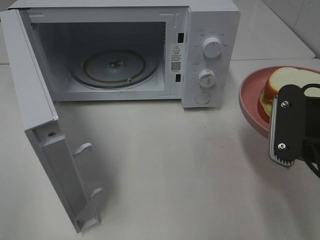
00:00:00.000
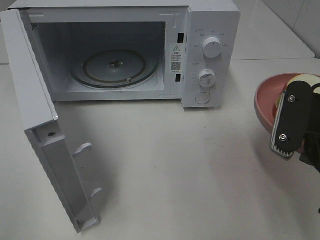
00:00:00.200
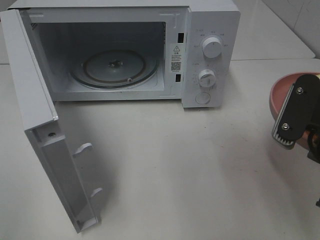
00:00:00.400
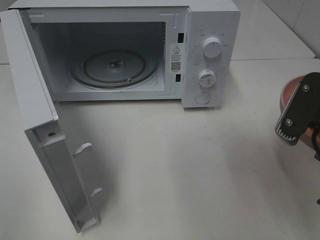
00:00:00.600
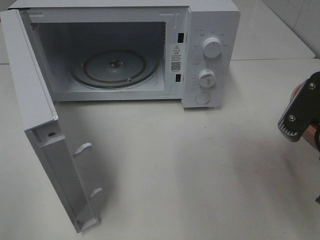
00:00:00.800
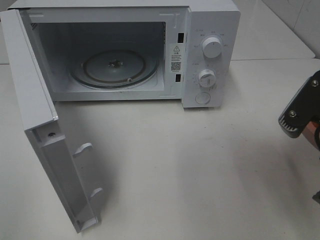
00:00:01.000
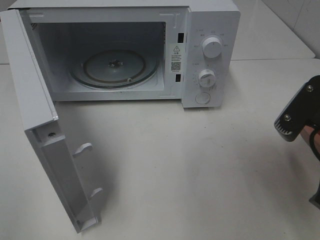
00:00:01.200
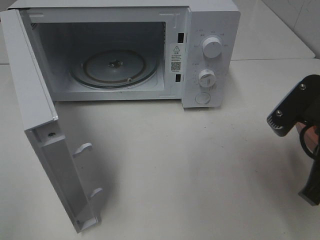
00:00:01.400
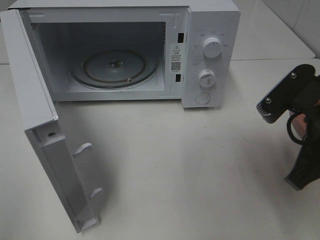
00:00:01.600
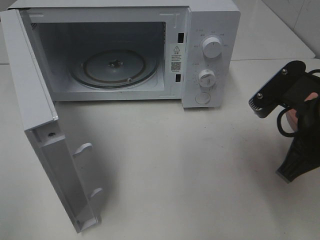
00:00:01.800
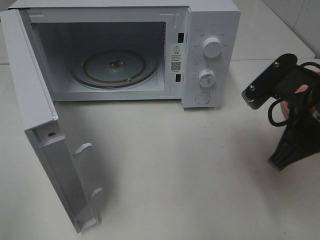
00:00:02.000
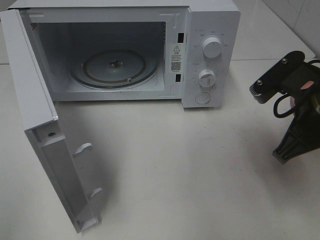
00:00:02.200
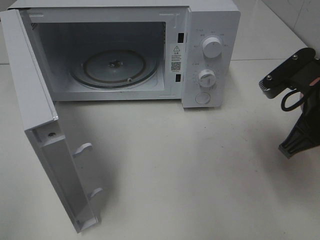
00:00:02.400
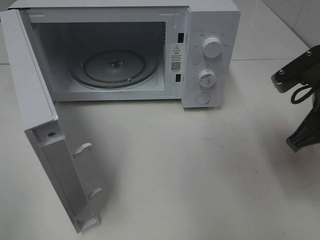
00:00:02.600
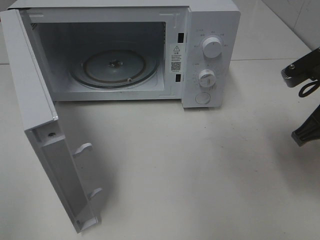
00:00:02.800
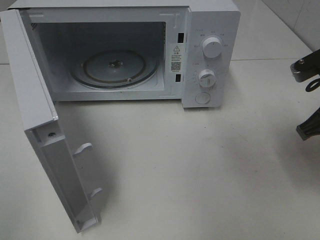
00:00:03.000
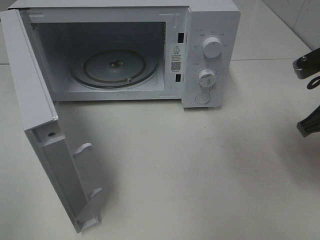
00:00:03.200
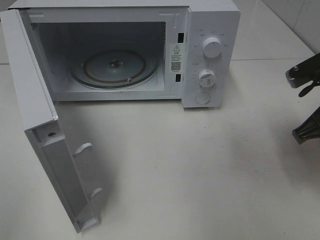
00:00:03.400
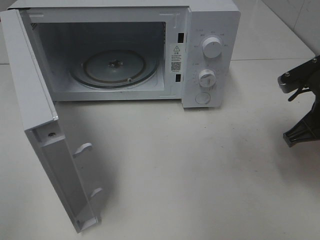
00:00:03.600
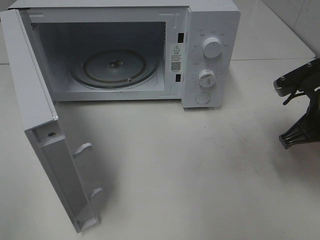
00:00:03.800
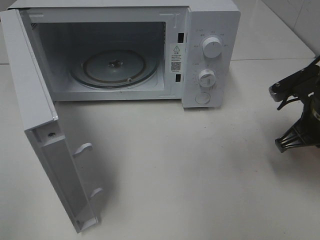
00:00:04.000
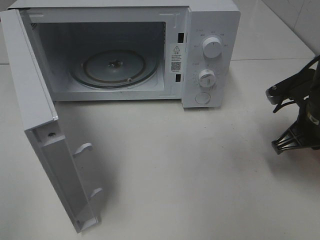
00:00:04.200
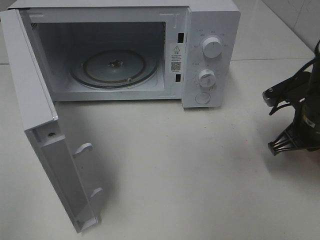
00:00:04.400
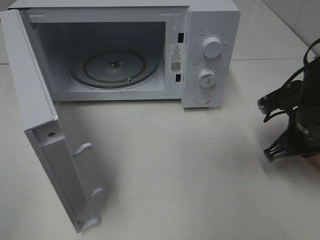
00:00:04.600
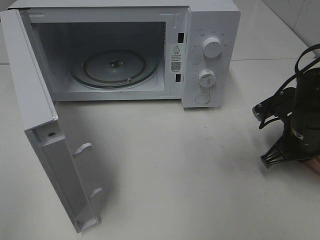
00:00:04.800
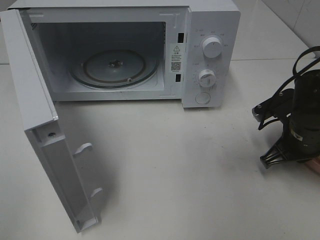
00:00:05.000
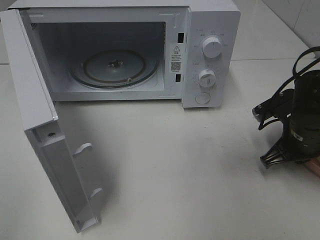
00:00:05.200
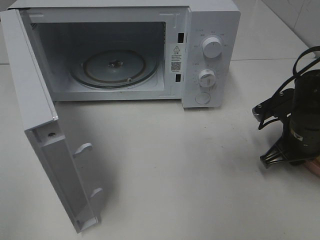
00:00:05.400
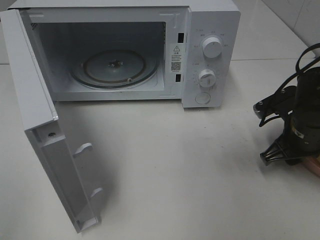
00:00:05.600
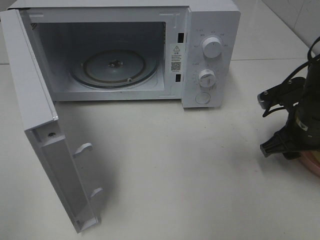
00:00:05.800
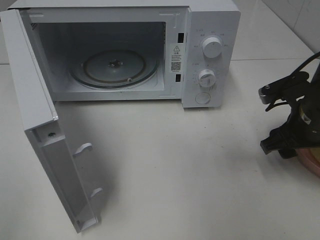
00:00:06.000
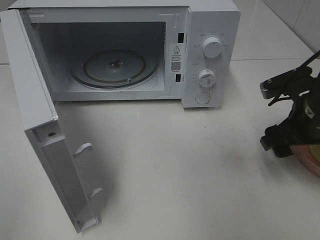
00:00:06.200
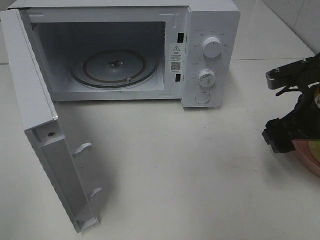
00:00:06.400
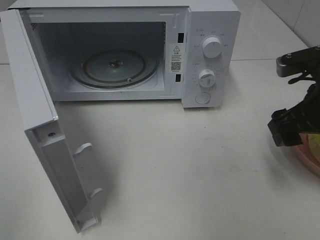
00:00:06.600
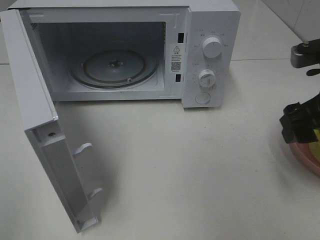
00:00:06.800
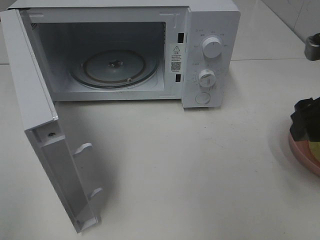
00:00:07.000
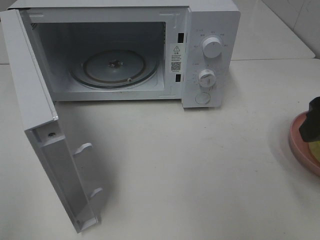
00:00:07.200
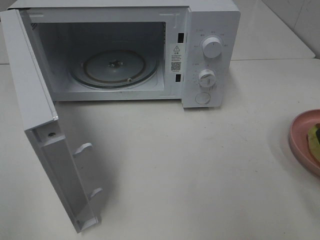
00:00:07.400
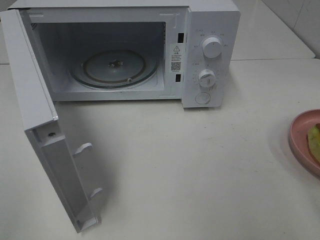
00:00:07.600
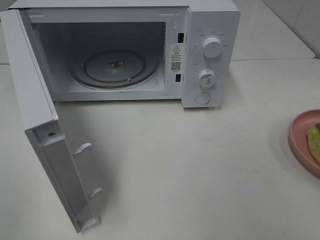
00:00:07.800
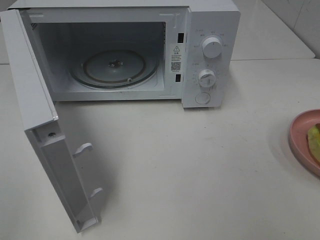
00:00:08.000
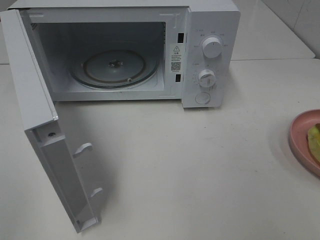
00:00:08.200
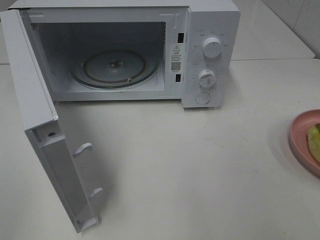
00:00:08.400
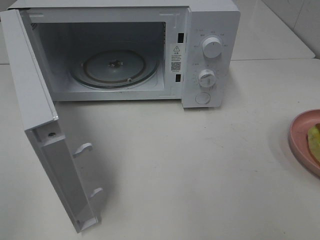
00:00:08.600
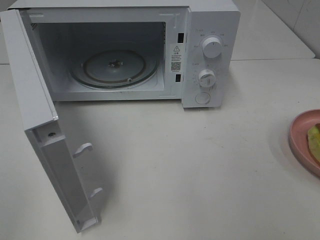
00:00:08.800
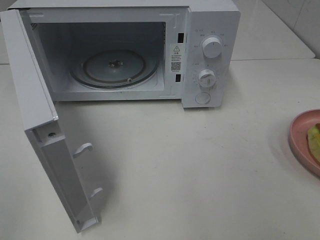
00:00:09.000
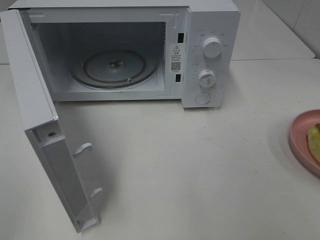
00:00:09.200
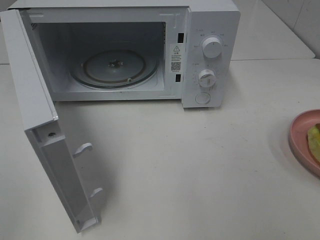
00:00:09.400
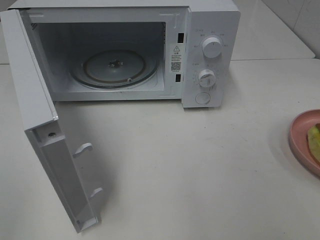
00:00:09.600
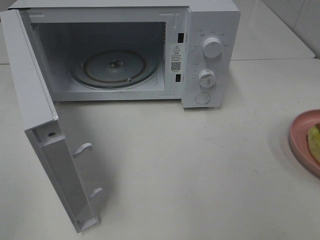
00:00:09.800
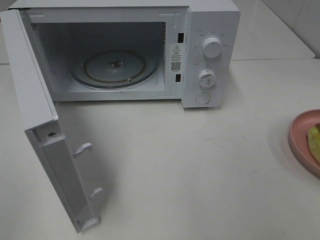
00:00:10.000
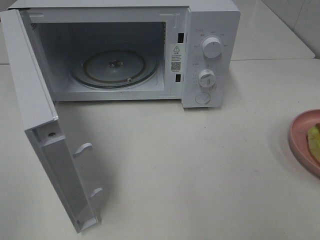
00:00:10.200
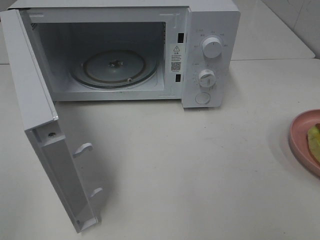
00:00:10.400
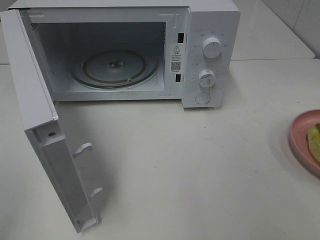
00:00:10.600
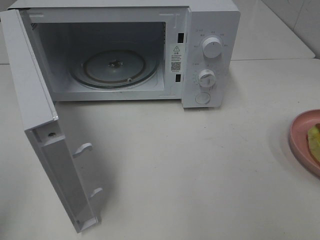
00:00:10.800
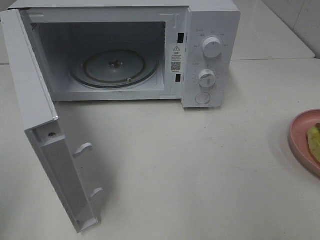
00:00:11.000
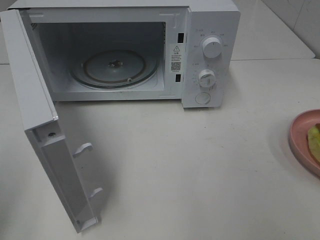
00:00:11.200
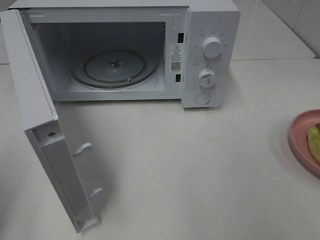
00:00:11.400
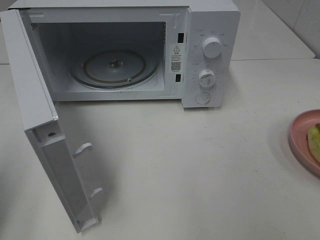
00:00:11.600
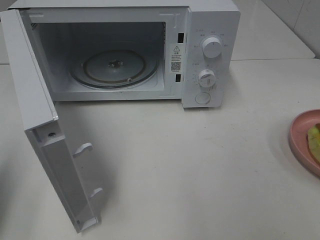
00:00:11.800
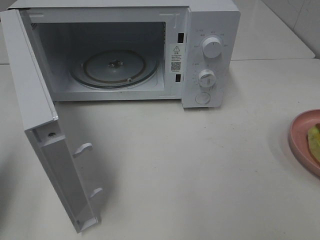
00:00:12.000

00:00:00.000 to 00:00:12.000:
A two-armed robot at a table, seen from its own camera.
Task of the whole recording: Heat Sandwich.
Step, 00:00:00.000 to 00:00:06.800: Right hand: place the plate on the table.
00:00:01.600 to 00:00:03.000: The right gripper heads forward and to the right, covering approximately 10 cm.
00:00:03.000 to 00:00:04.400: The right gripper heads downward, covering approximately 10 cm.
00:00:04.400 to 00:00:06.000: The right gripper opens its fingers.
00:00:06.000 to 00:00:07.600: The right gripper moves upward and backward, approximately 20 cm.
00:00:09.000 to 00:00:10.400: Both grippers stay about where they are.
00:00:10.400 to 00:00:12.000: The left gripper shifts roughly 15 cm forward, and closes its fingers.

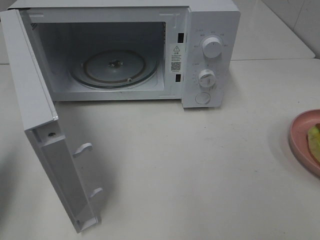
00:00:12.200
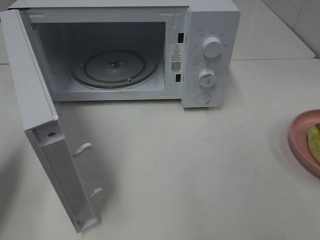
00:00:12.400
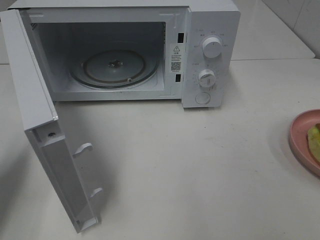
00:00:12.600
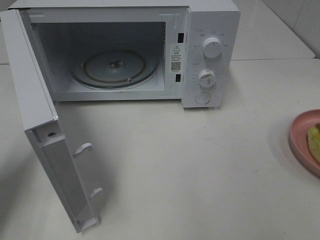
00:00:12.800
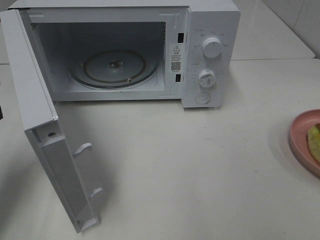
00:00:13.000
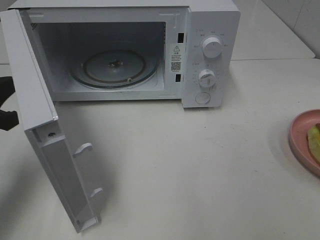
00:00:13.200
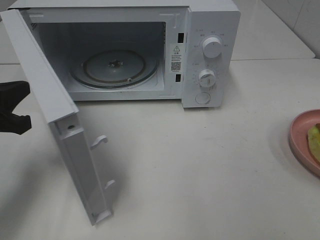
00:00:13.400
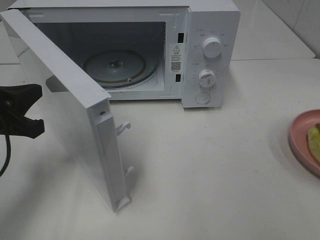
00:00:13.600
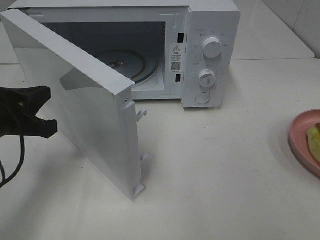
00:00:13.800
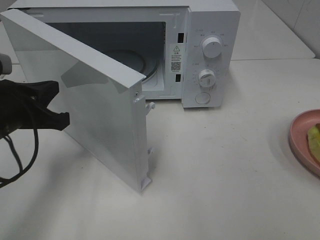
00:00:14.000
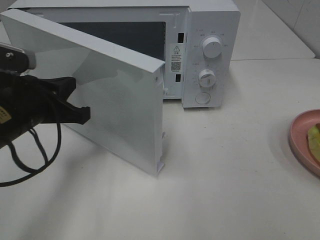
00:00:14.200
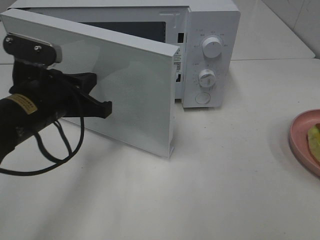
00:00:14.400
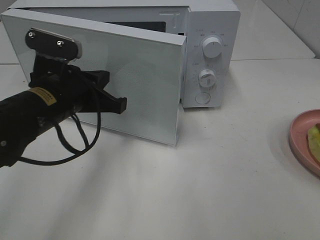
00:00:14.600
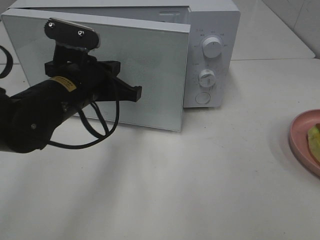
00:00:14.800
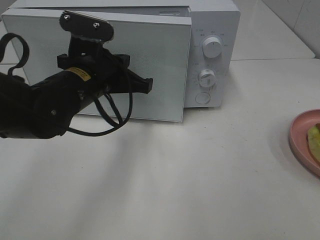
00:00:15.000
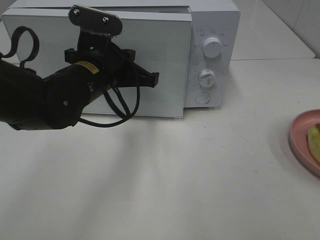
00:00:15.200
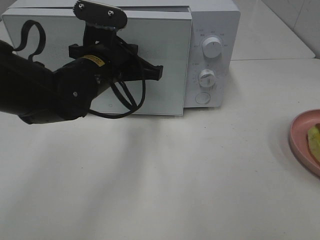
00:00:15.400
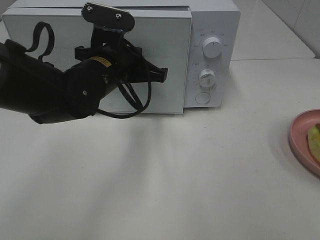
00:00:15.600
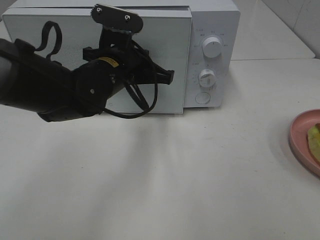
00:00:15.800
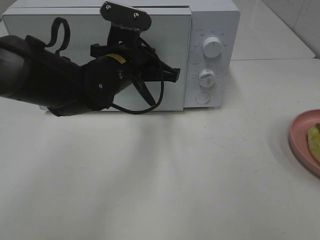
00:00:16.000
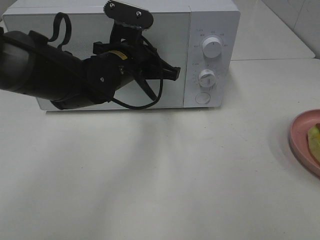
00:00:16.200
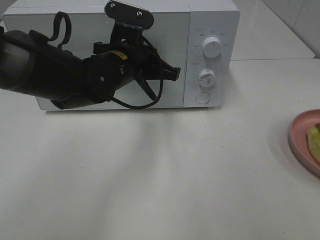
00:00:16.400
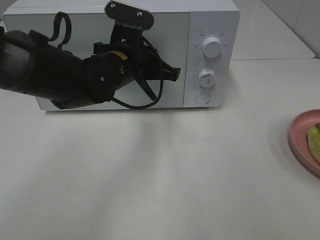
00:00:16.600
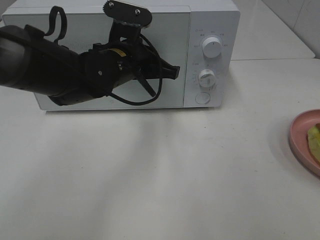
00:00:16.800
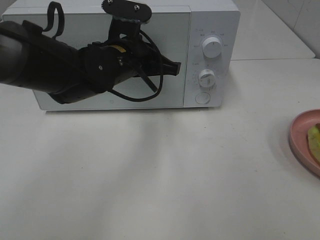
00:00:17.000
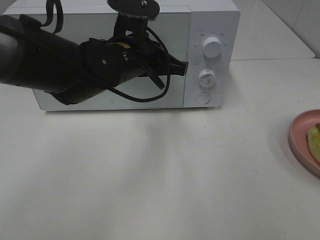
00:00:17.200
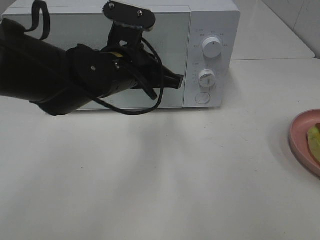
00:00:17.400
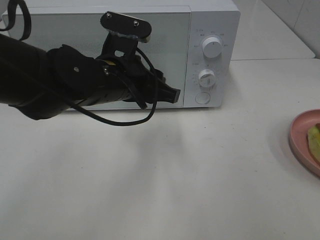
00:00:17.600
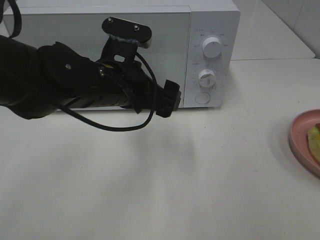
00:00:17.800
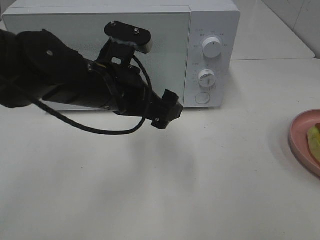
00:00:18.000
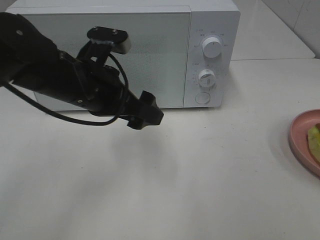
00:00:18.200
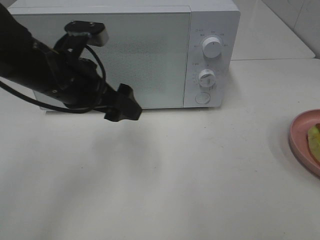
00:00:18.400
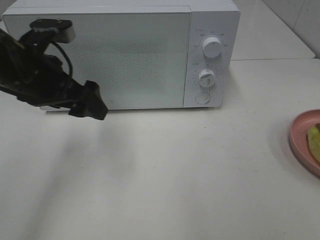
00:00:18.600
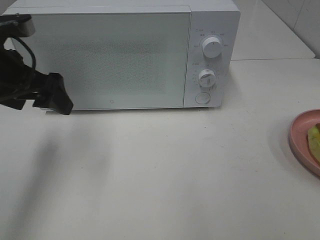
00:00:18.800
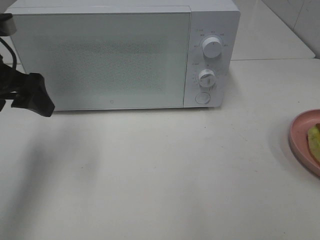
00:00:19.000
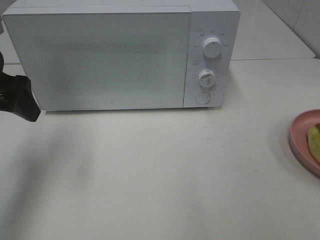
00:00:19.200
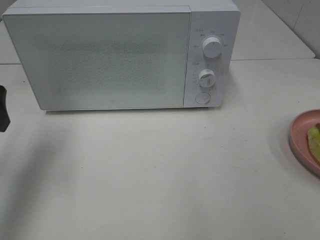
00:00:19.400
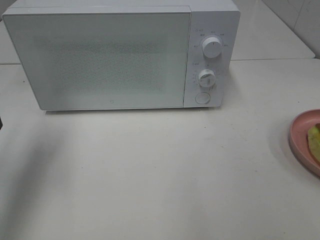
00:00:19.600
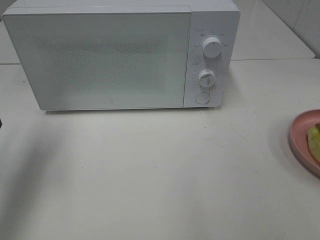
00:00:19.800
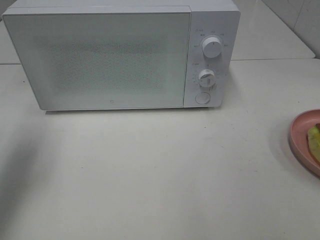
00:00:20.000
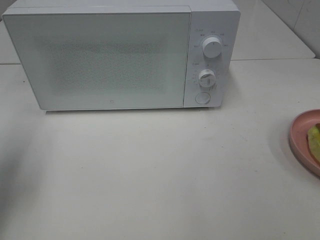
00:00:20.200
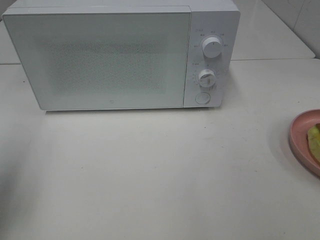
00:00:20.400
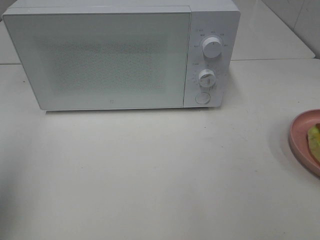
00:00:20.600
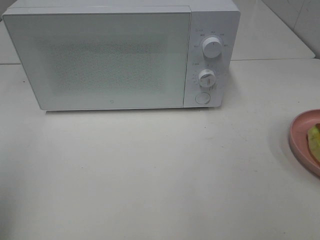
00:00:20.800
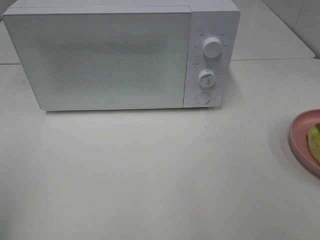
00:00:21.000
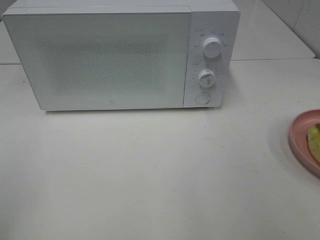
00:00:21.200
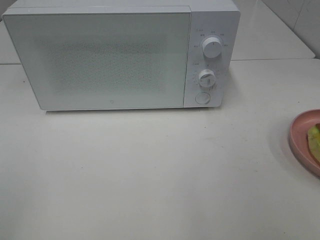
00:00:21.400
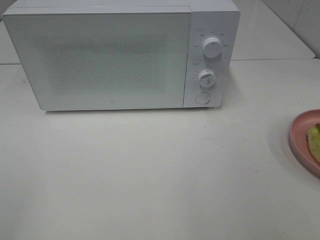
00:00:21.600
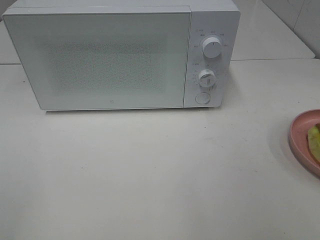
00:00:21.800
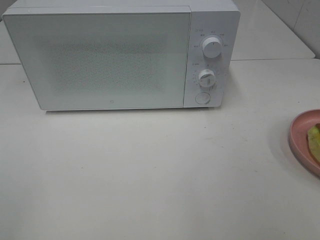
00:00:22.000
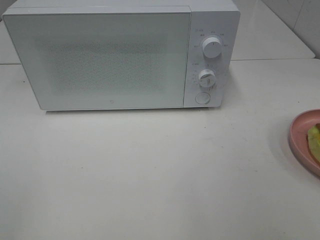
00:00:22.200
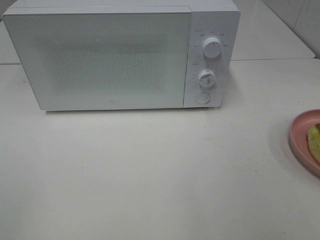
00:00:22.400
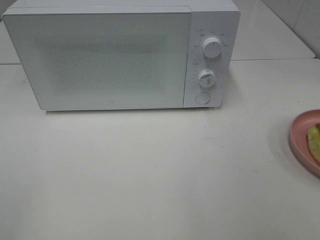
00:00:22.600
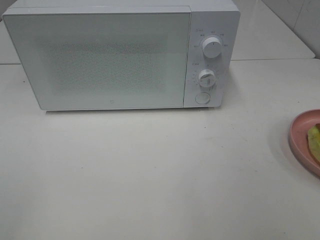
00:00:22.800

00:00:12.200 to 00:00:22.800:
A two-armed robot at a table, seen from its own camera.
Task of the whole recording: Heat Sandwich.
Step, 00:00:12.200 to 00:00:17.600: Left hand: close the microwave door.
00:00:12.200 to 00:00:13.800: The left gripper moves to the right, downward and forward, about 15 cm.
00:00:13.800 to 00:00:15.200: The left gripper moves to the right and forward, about 15 cm.
00:00:15.200 to 00:00:16.800: The grippers make only small movements.
00:00:16.800 to 00:00:18.200: The left gripper goes about 10 cm backward and to the left, and opens its fingers.
00:00:18.200 to 00:00:19.800: The left gripper travels to the left by about 20 cm.
00:00:19.800 to 00:00:21.200: The left gripper is displaced backward by about 20 cm.
